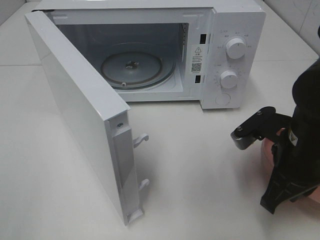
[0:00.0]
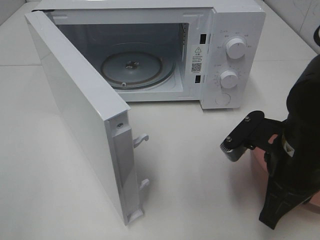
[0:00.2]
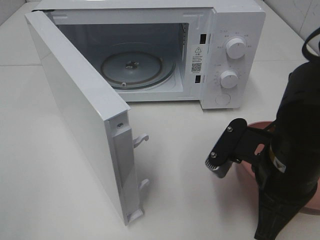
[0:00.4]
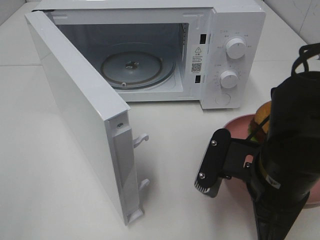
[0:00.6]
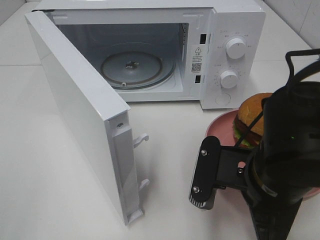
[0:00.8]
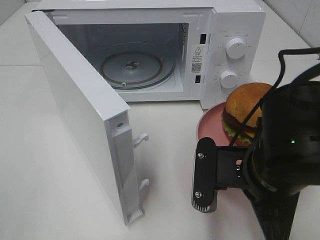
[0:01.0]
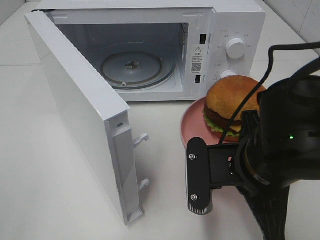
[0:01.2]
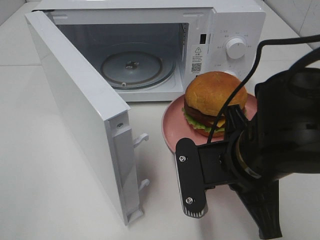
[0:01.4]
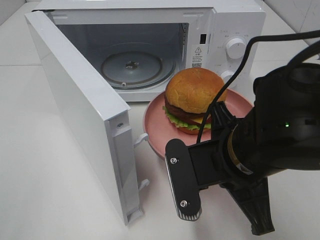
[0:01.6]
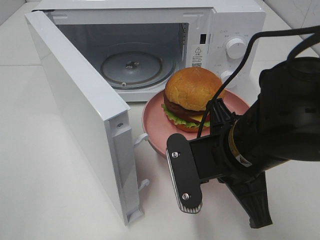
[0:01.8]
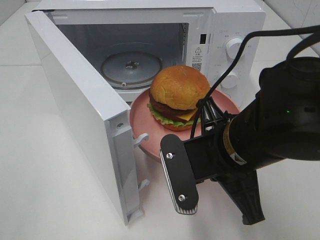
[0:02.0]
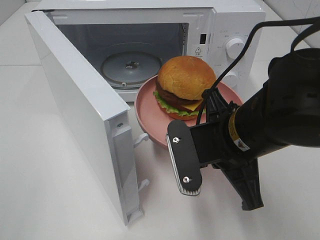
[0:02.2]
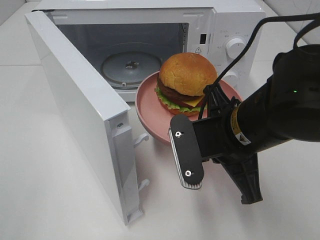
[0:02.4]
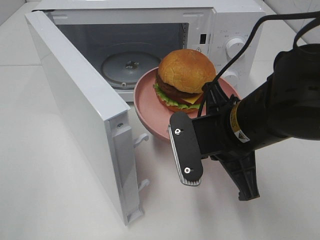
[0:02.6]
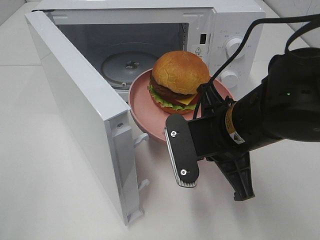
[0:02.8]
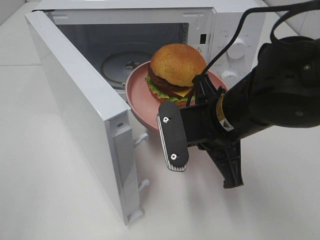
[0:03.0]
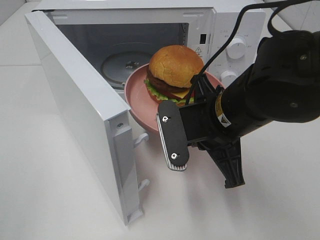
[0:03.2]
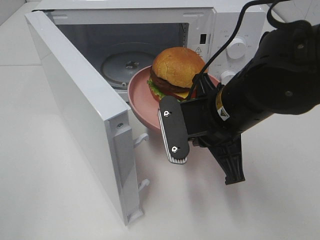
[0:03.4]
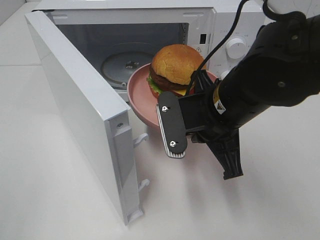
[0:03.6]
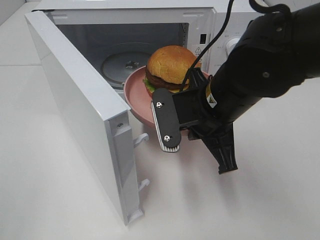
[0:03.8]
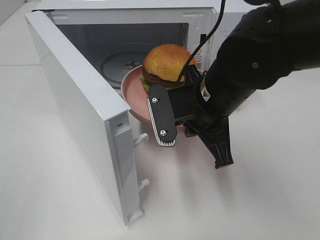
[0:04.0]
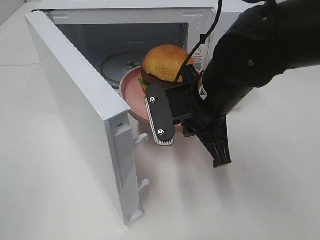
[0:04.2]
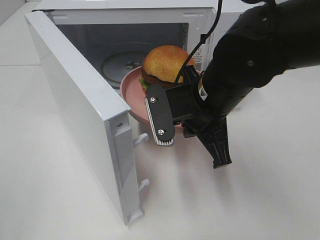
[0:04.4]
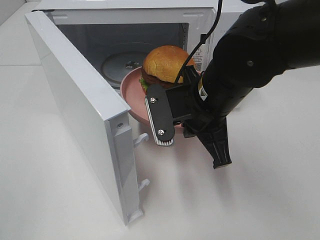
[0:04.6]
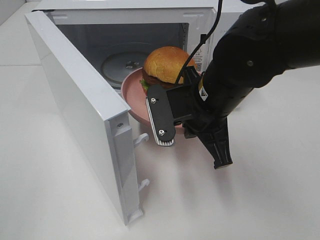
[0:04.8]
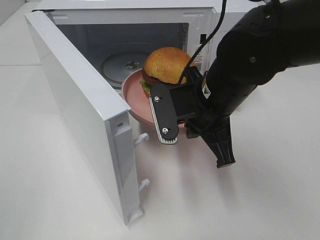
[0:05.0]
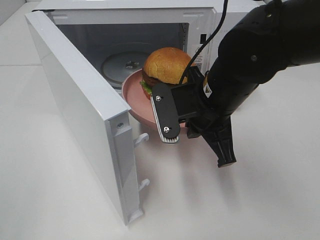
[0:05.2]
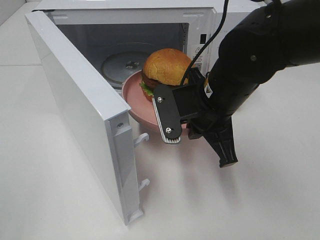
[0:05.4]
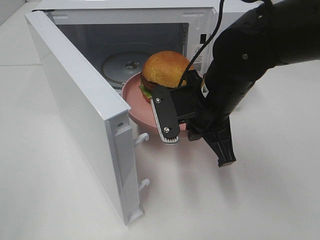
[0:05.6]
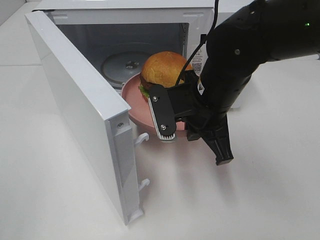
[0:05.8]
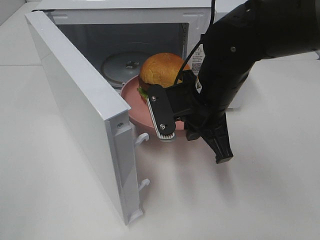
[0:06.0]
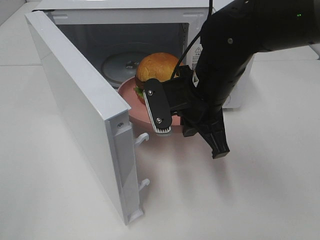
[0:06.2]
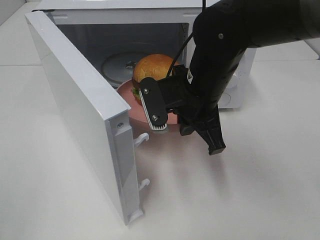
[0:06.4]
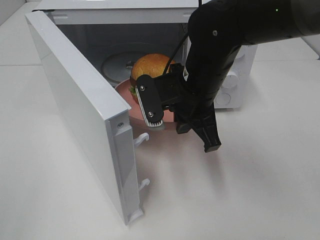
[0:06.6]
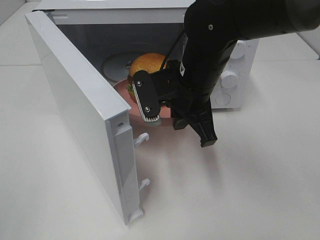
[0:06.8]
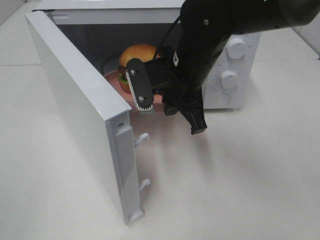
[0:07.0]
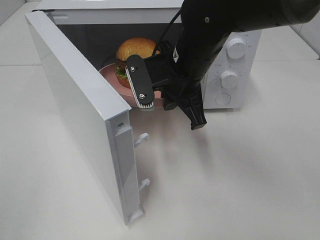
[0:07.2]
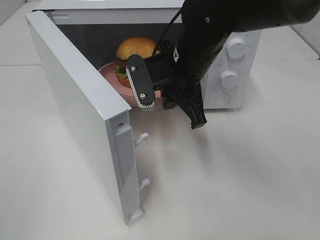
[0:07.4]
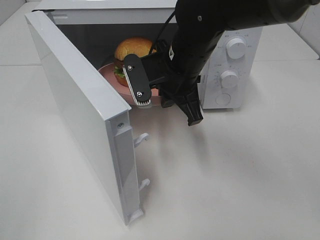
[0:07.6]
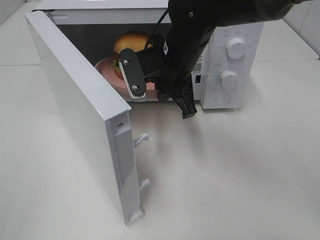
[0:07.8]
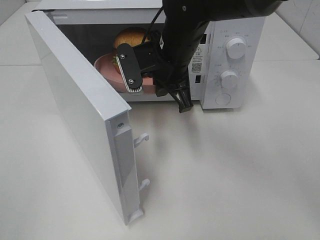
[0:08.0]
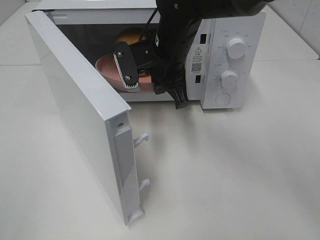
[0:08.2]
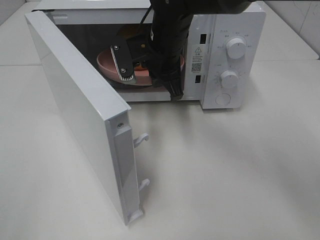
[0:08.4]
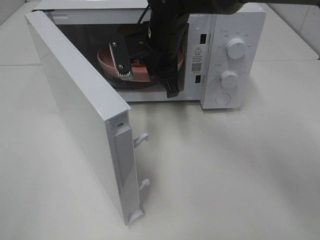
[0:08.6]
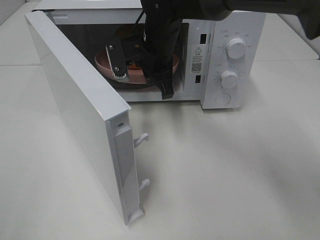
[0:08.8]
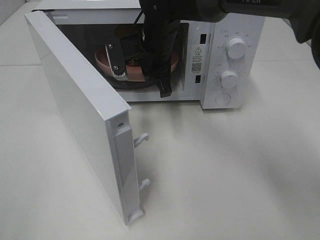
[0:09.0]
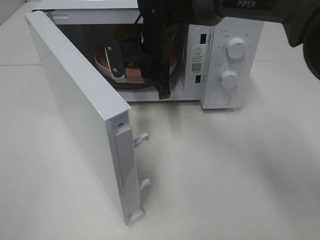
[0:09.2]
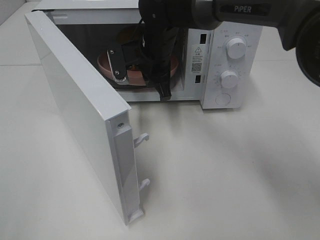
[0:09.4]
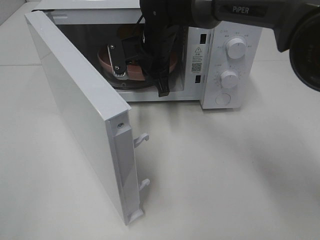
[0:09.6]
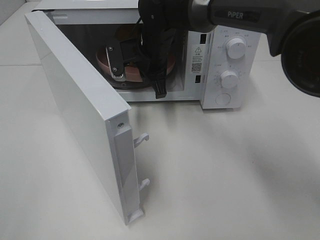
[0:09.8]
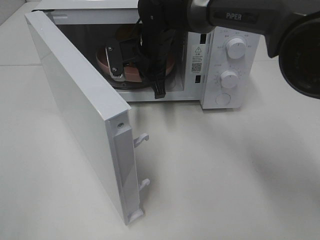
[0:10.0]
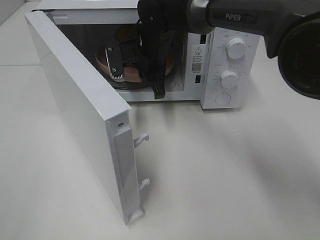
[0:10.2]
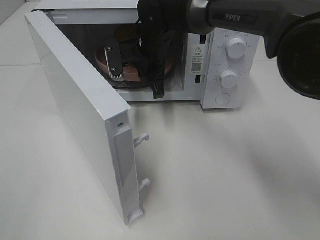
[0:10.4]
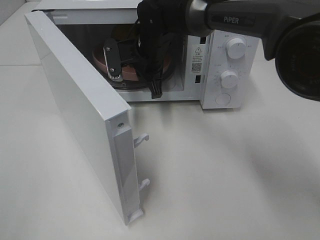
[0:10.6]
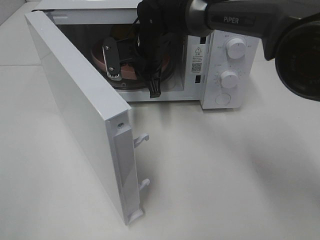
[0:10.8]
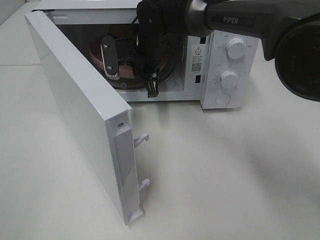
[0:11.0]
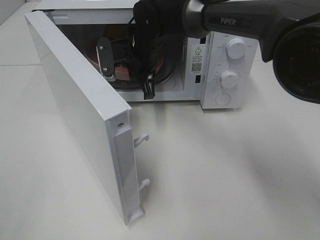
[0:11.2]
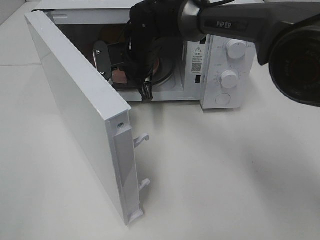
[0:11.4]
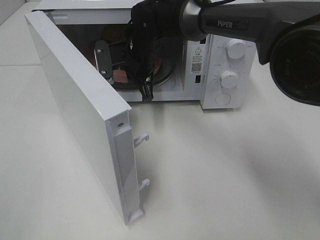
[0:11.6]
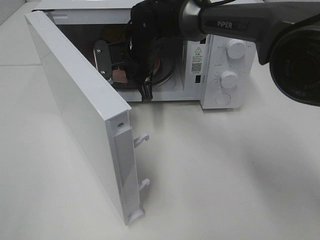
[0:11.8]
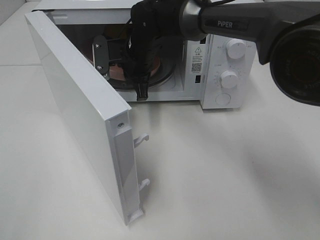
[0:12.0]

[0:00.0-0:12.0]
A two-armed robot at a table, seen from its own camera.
Task of the whole recording: Heat the burger.
0:00.0 to 0:01.6: The right gripper travels to the left by roughly 10 cm.
0:01.6 to 0:03.0: The right gripper moves forward, roughly 5 cm.
0:03.0 to 0:06.0: The grippers make only small movements.
0:06.0 to 0:07.6: The right gripper shifts by approximately 5 cm.
0:07.6 to 0:09.0: The right gripper heads forward, covering some 10 cm.
0:09.0 to 0:12.0: The grippers make only small movements.

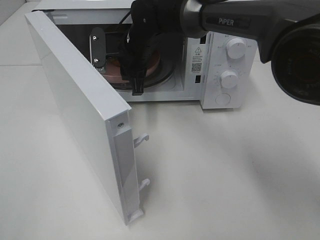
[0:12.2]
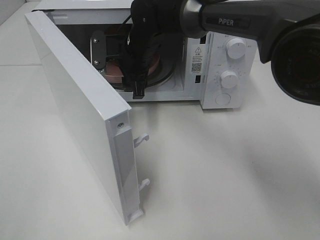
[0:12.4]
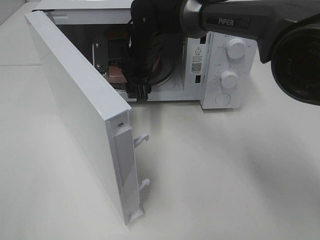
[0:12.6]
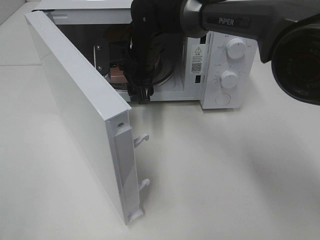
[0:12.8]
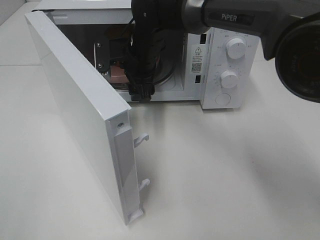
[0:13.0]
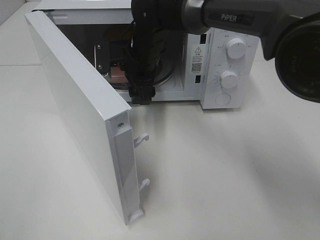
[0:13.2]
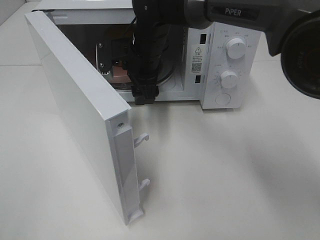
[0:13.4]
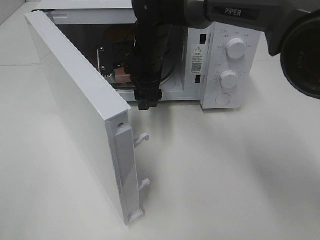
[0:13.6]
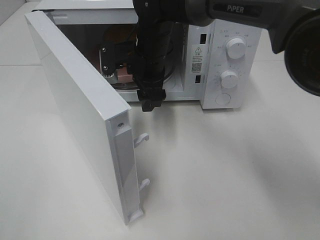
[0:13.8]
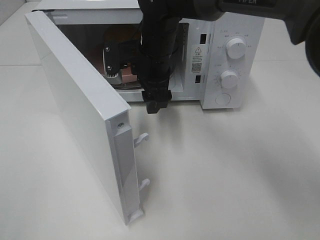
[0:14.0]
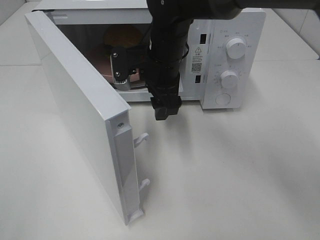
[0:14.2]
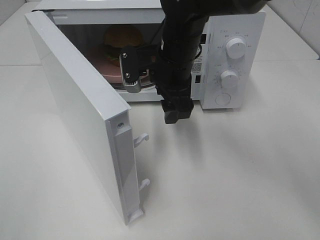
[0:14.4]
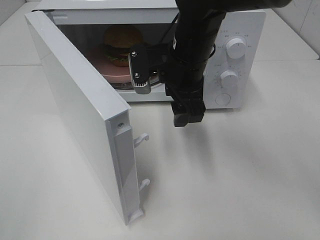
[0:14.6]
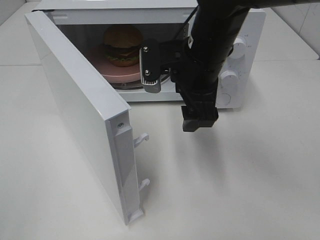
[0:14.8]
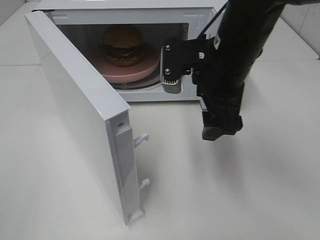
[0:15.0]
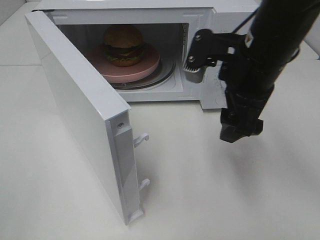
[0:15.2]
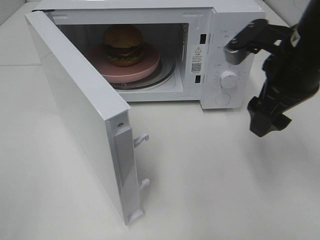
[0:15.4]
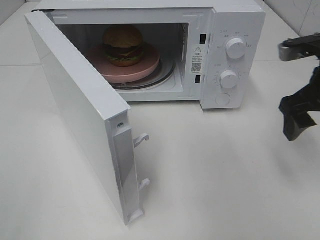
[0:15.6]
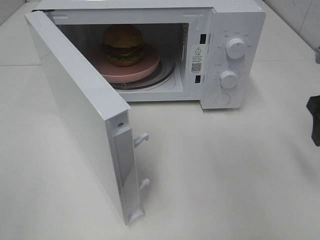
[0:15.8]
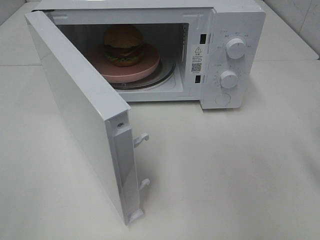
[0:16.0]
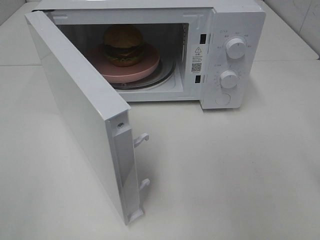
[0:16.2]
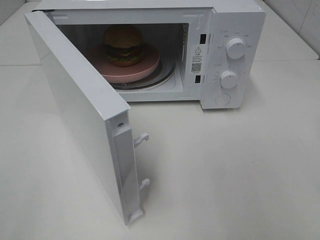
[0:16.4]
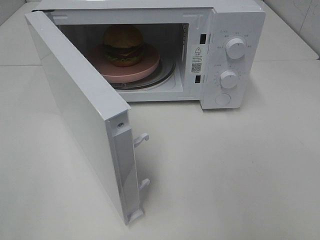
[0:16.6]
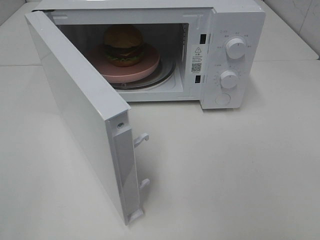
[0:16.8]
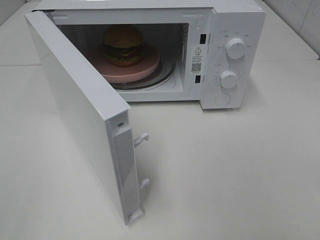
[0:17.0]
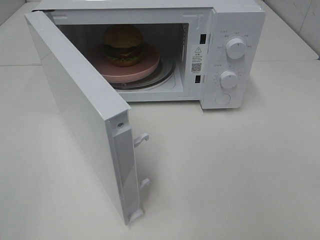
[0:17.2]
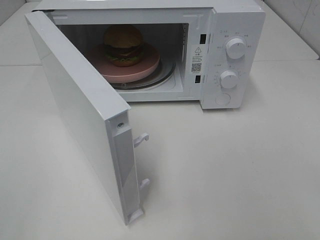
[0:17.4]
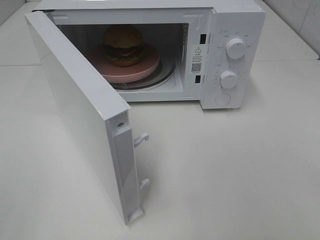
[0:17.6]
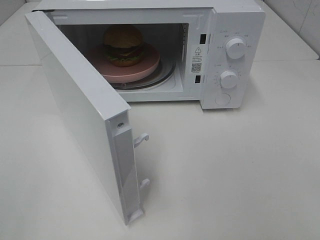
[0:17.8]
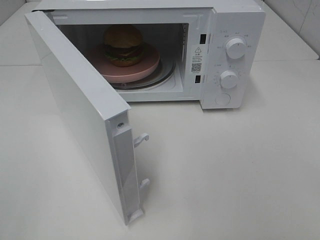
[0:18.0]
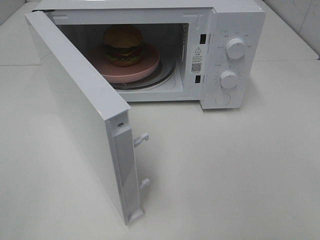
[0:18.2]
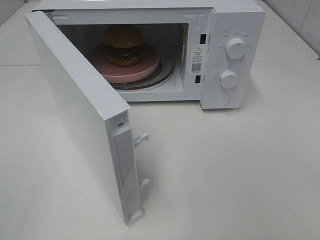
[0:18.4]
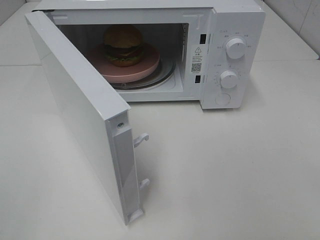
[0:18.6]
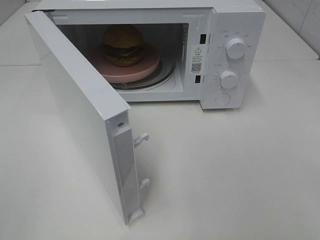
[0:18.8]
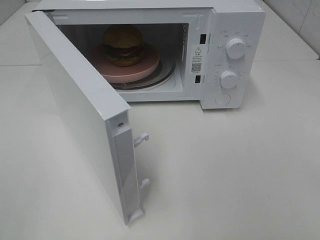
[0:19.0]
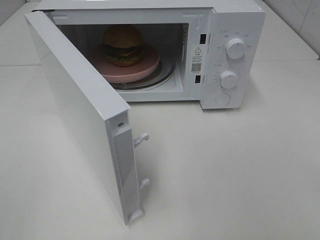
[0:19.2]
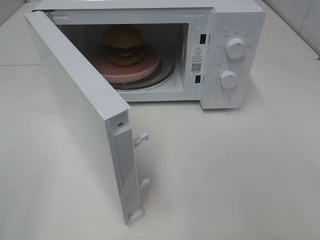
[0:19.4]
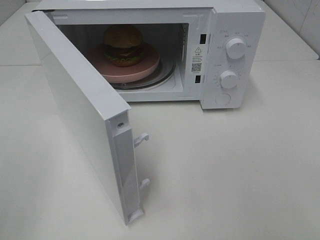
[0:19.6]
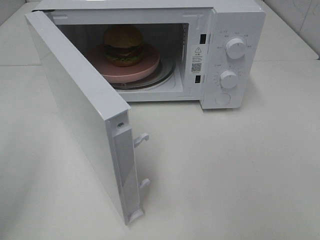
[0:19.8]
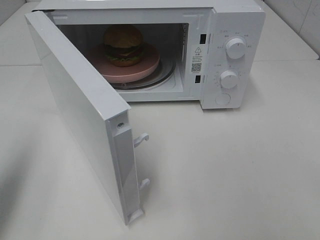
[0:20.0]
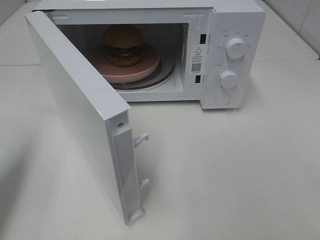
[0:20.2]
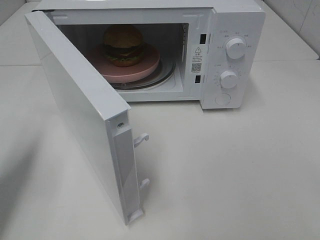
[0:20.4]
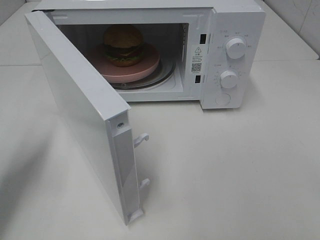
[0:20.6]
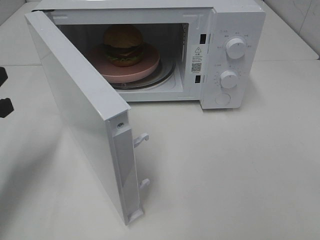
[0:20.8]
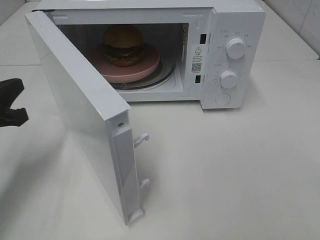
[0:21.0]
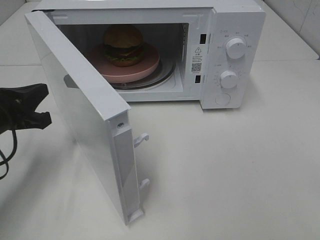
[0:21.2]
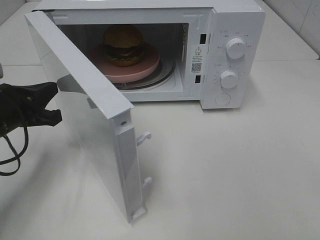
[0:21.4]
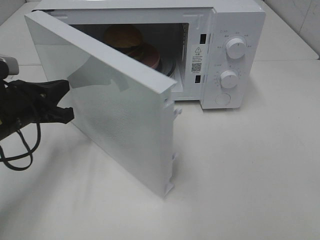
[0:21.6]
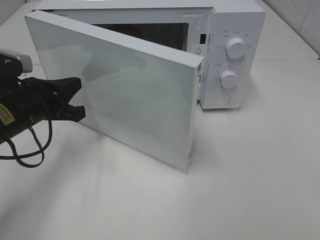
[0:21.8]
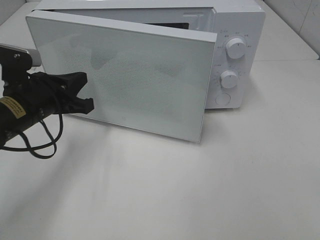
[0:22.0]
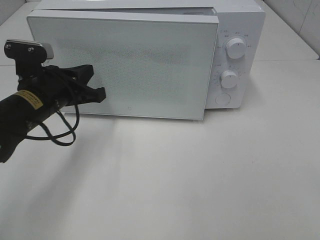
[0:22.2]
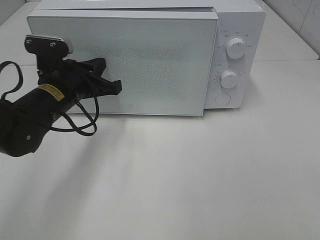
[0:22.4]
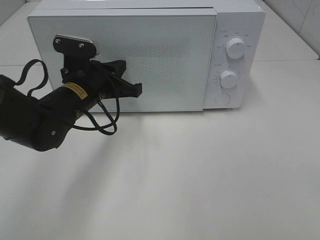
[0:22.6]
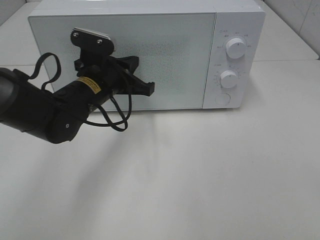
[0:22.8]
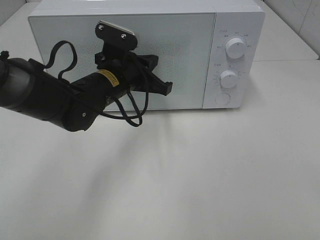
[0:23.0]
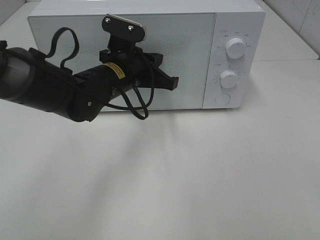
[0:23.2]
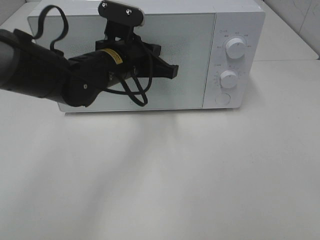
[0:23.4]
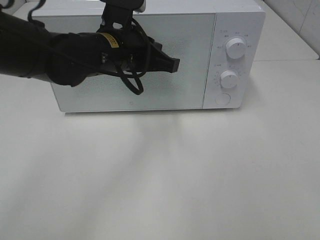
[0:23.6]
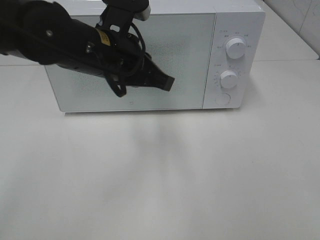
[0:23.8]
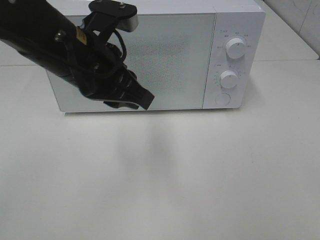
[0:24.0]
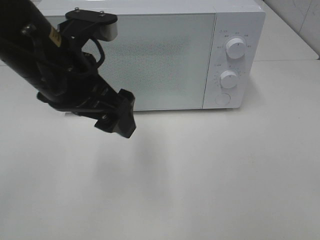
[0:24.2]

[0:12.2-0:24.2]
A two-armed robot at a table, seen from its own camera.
Task of the whole recording: Heat the burger.
Step, 0:12.4 to 0:23.4: Left hand: close the microwave door.
0:13.8 to 0:15.2: The right gripper travels to the right, backward and upward by approximately 20 cm.
0:15.2 to 0:16.6: The right gripper is displaced backward and to the right by some 25 cm.
0:19.8 to 0:21.2: The left gripper moves downward, forward and to the right, some 20 cm, and closes up.
0:21.2 to 0:22.6: The left gripper heads to the right and forward, covering some 15 cm.
0:22.6 to 0:24.2: The left gripper shifts approximately 15 cm upward and backward, and opens.
